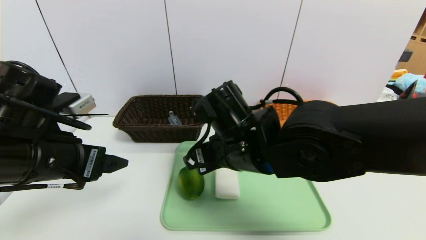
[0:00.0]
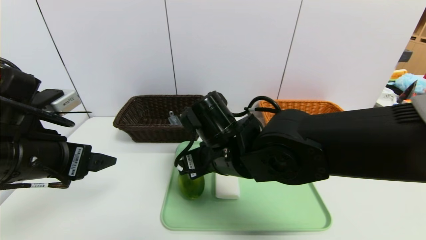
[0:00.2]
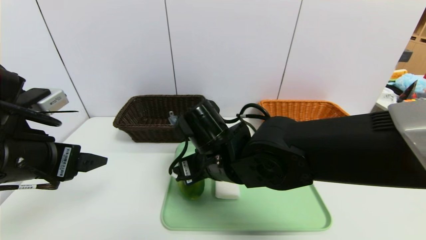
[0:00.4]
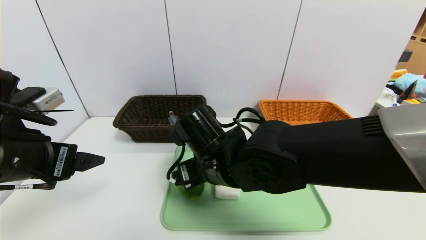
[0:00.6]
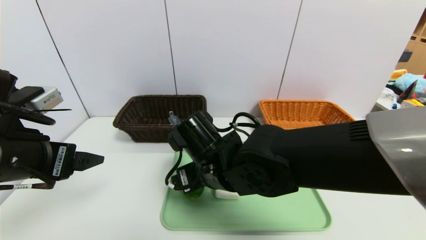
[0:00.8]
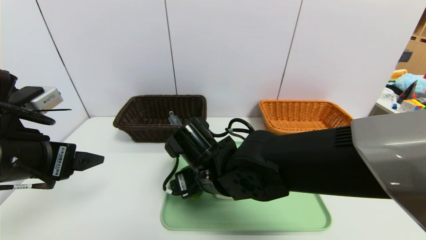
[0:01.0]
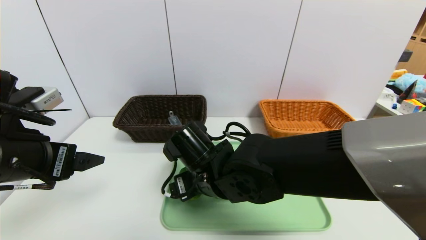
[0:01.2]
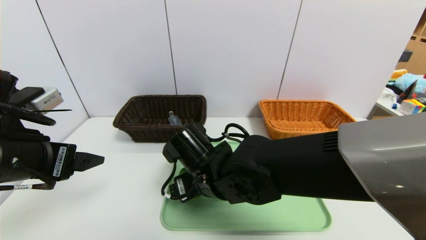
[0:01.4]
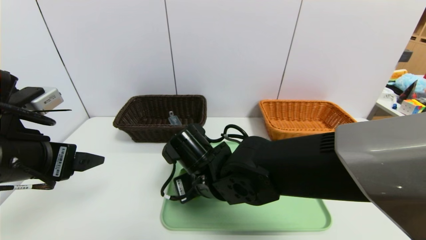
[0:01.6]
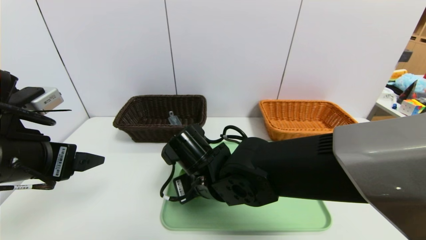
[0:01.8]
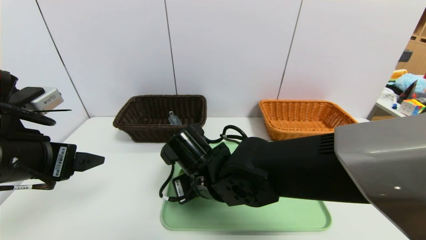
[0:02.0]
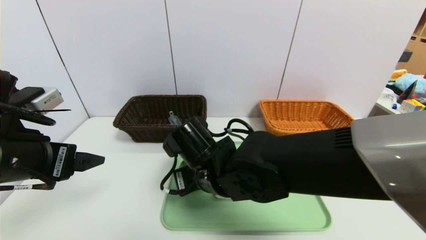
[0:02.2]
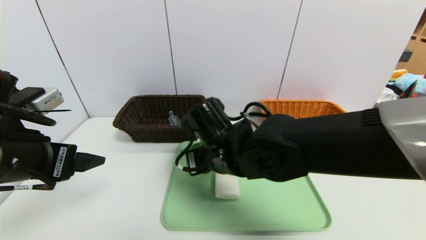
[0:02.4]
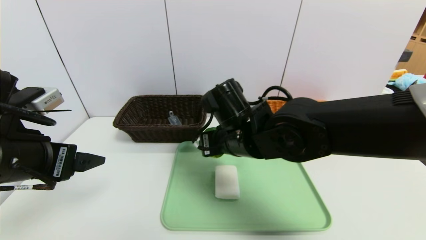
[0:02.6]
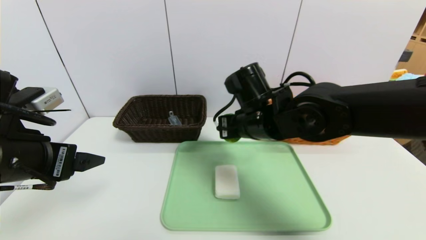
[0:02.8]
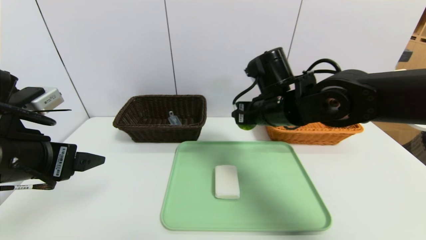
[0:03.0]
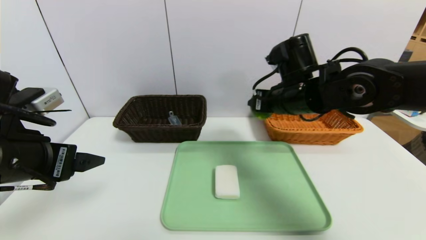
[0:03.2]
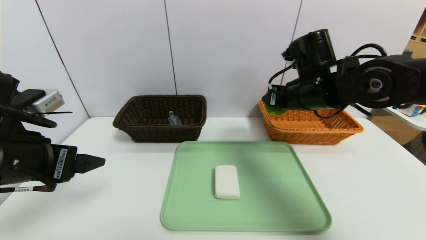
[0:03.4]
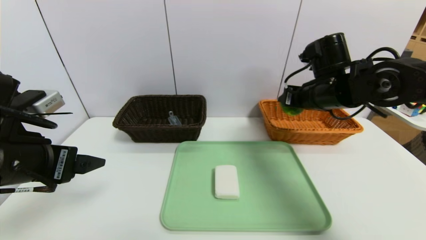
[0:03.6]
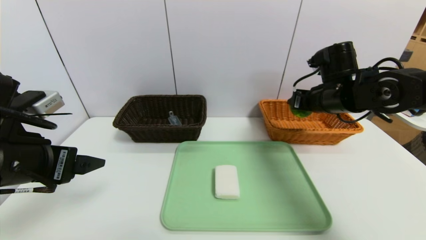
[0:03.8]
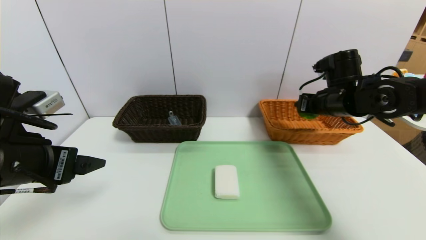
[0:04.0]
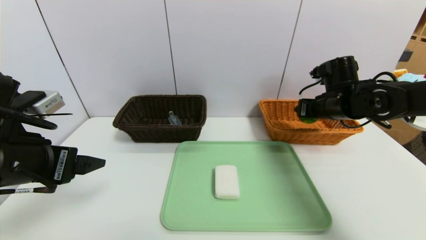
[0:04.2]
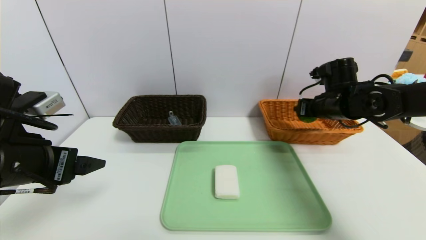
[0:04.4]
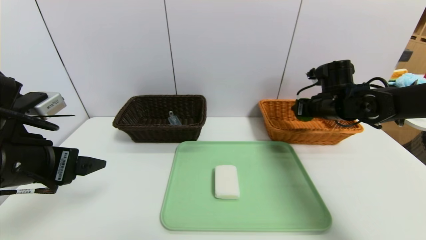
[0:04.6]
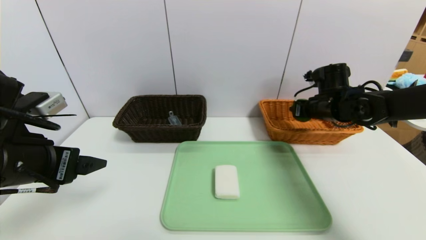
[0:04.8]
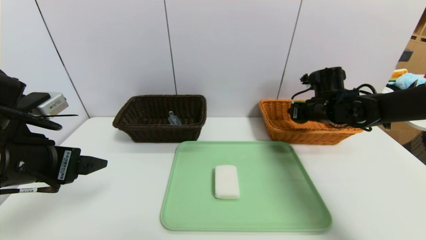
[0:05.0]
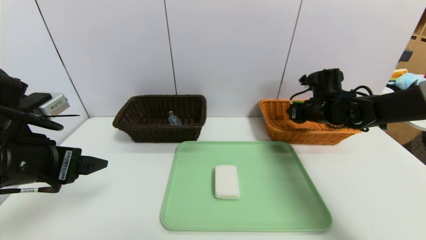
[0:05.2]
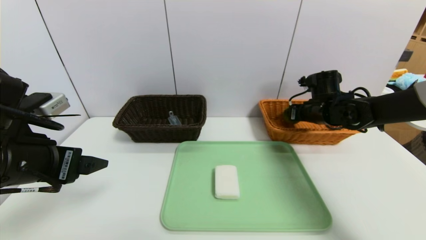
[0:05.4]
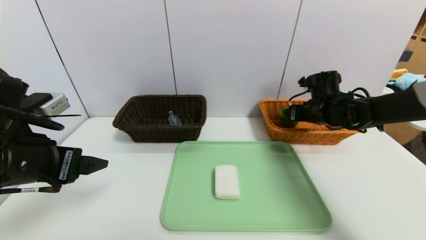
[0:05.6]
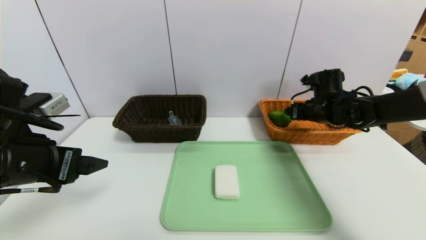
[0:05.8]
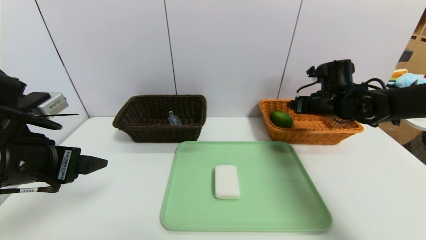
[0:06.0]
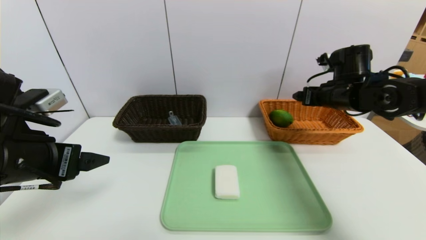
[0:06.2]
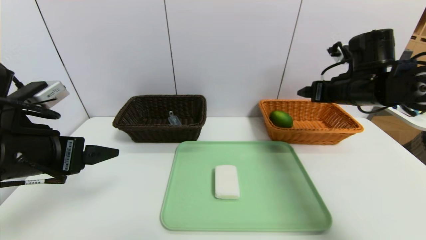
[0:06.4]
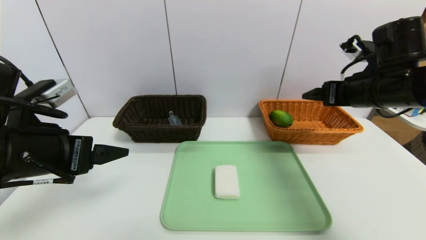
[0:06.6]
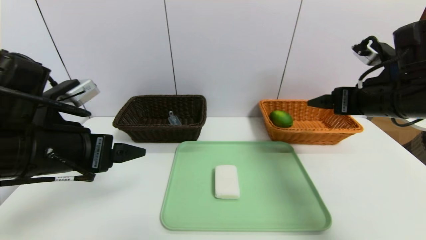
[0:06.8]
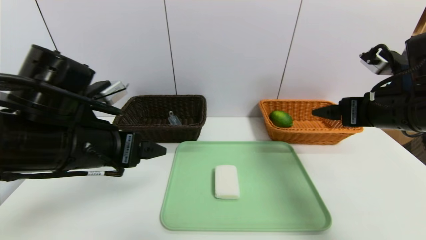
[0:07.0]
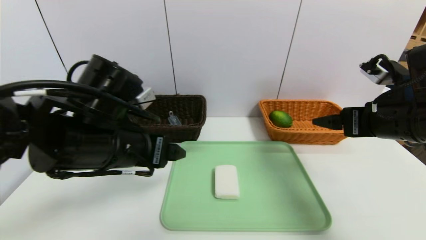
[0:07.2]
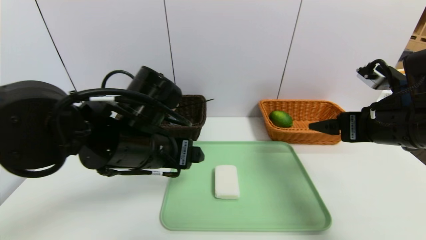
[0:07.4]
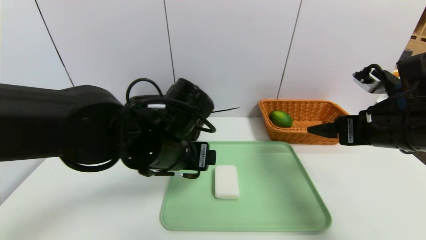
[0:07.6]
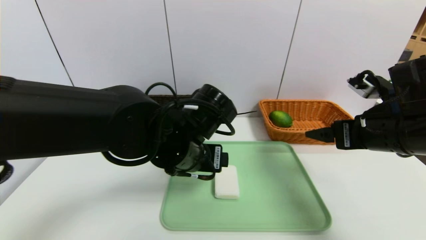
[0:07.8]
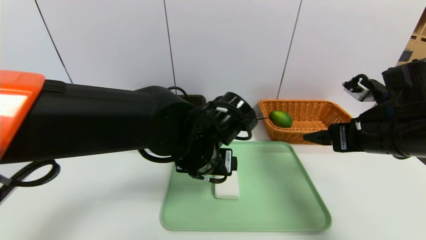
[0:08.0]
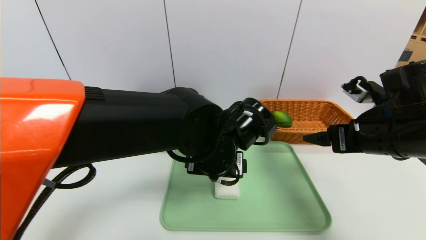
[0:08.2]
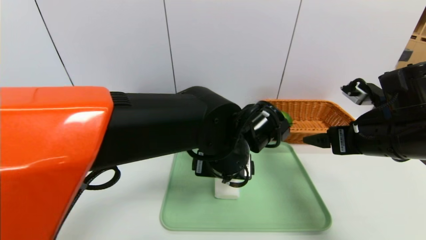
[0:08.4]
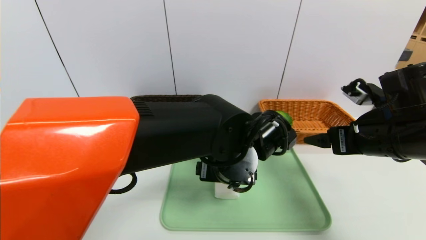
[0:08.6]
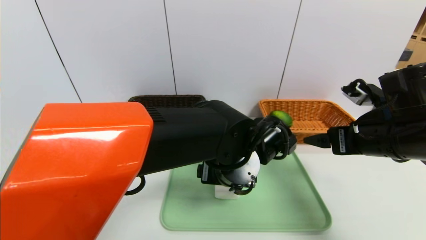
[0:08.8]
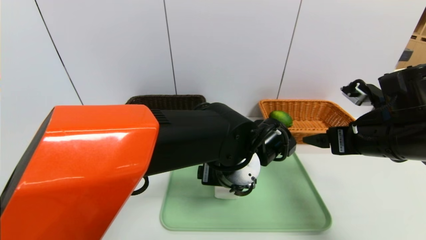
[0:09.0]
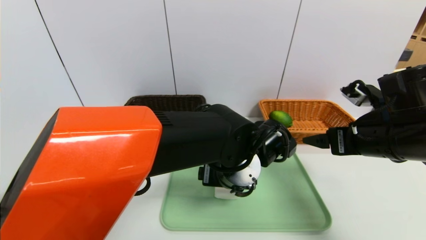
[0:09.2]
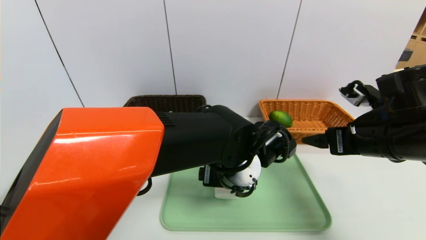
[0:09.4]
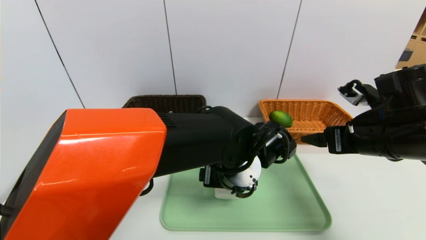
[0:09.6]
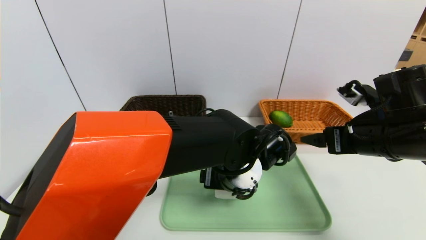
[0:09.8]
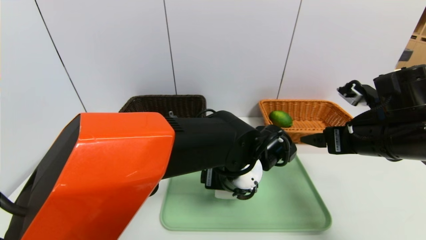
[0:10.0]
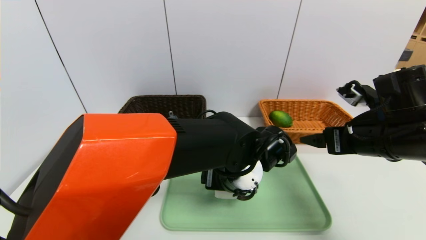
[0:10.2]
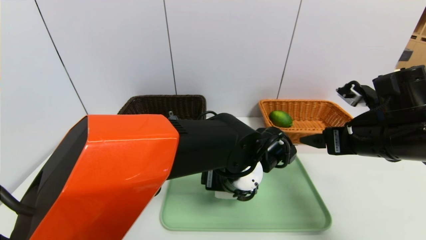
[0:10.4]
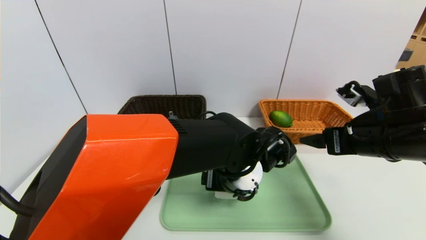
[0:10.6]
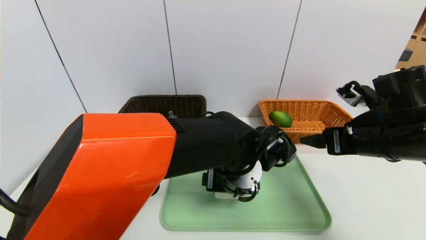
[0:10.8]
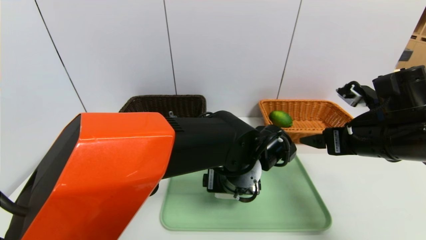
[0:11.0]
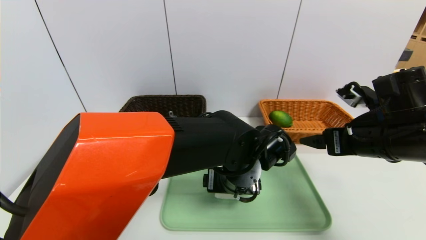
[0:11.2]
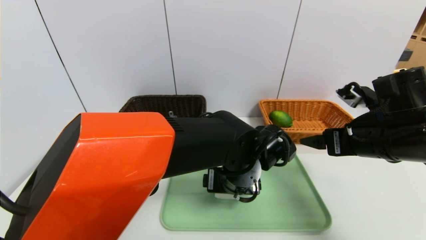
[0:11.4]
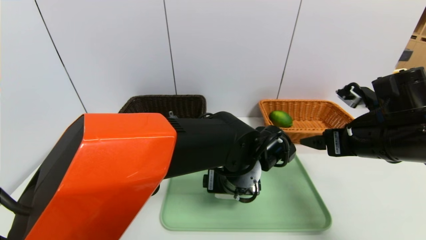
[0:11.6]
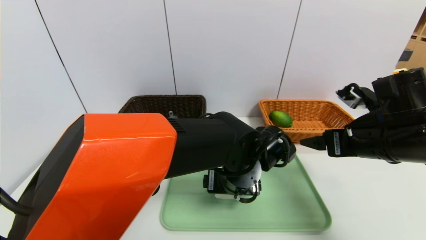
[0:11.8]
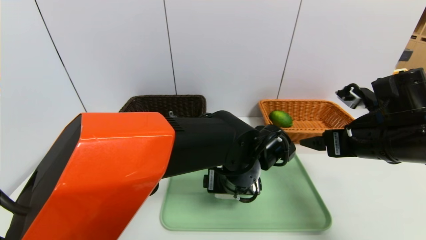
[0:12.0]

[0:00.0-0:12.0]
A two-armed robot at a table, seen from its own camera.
Task of the whole recording: place the food in the right basket with the right gripper, and place the non food items in the left basket with the left gripper.
Step, 0:00.0 to 0:05.8: Grasp the lemon and put it in the right basket.
0:00.0 to 0:01.6: The right gripper is displaced downward by about 5 cm, and closes up.
0:01.6 to 0:03.0: The right gripper heads to the right, upward and forward, covering approximately 15 cm.
0:03.0 to 0:04.4: The right gripper travels to the right and forward by about 15 cm.
0:04.4 to 0:06.0: The right gripper opens.
0:06.0 to 0:07.6: The left gripper travels to the right by some 20 cm. The right gripper goes some 15 cm backward.
0:07.6 to 0:09.0: The left gripper heads to the right, covering some 10 cm.
0:09.0 to 0:12.0: There are only small adjustments of the grippers.

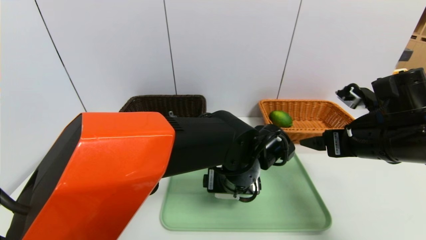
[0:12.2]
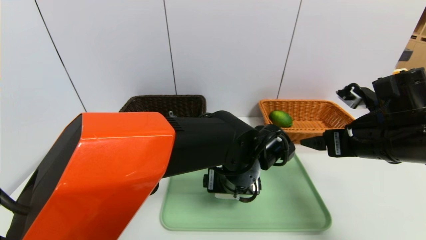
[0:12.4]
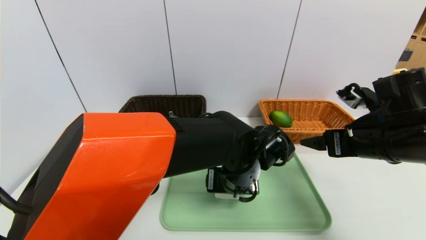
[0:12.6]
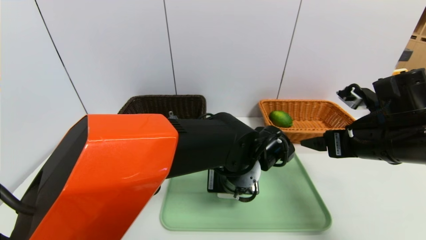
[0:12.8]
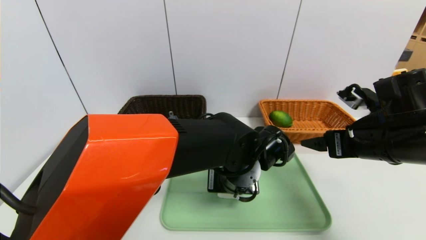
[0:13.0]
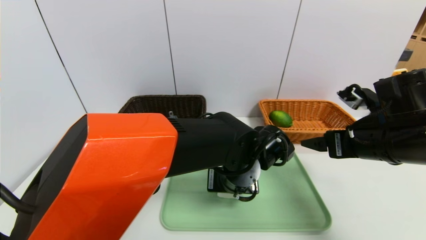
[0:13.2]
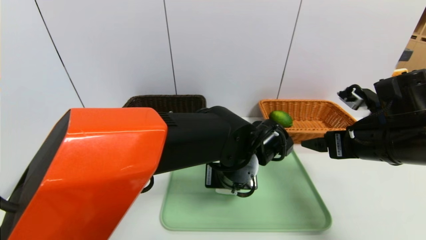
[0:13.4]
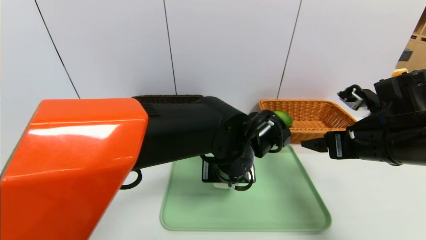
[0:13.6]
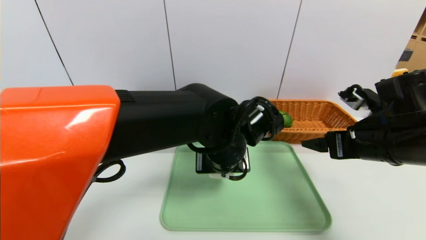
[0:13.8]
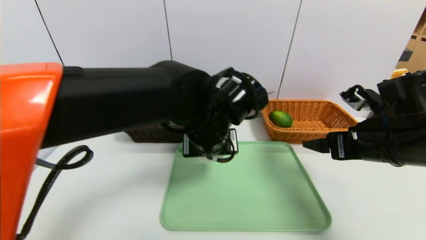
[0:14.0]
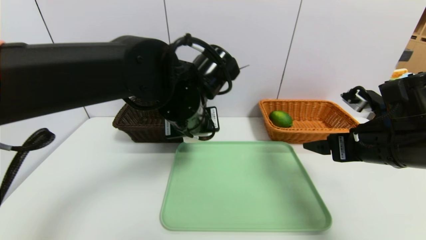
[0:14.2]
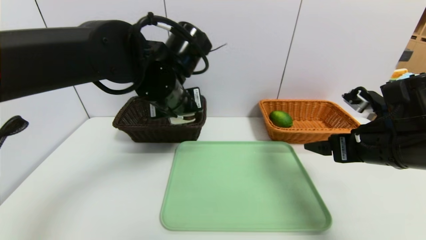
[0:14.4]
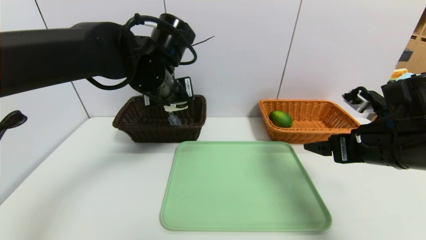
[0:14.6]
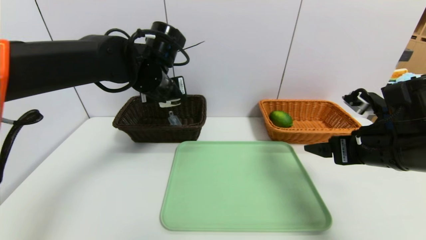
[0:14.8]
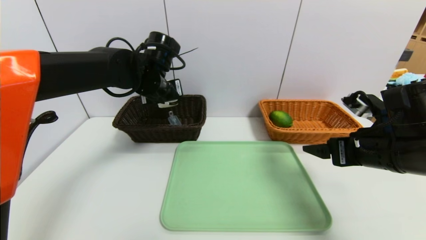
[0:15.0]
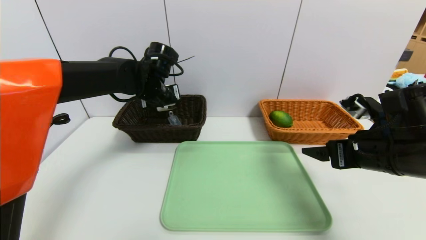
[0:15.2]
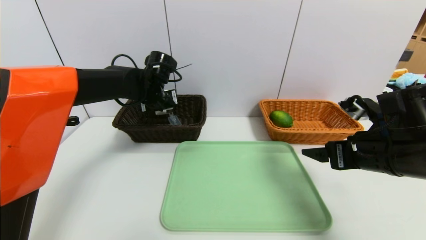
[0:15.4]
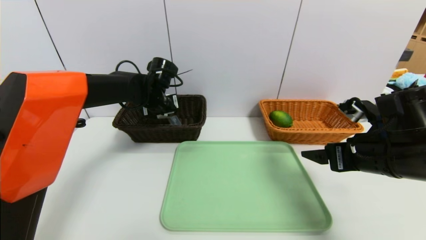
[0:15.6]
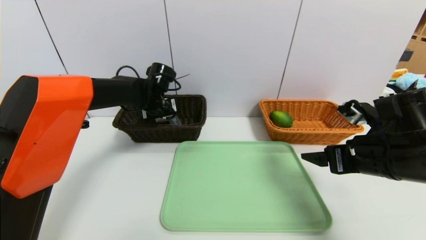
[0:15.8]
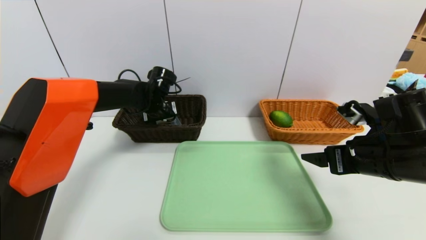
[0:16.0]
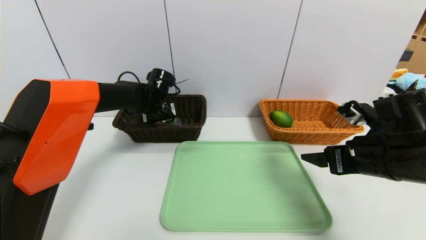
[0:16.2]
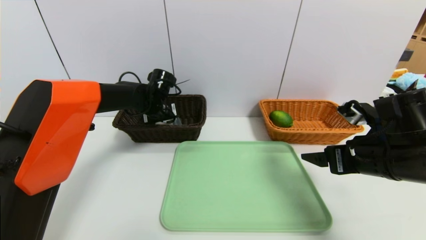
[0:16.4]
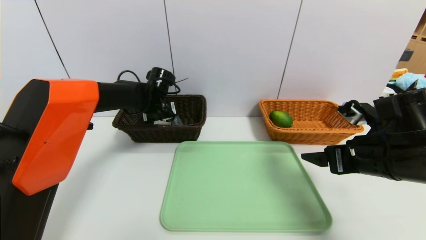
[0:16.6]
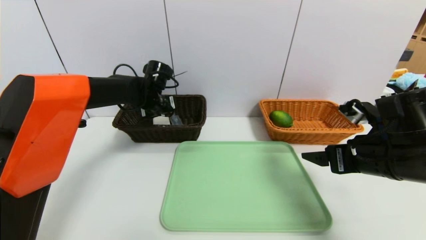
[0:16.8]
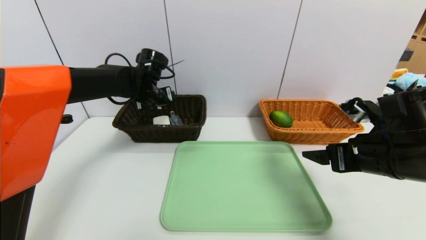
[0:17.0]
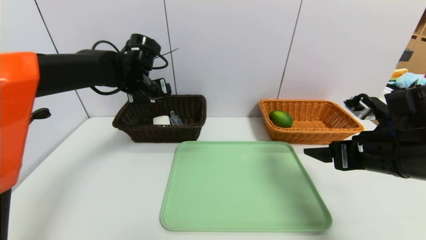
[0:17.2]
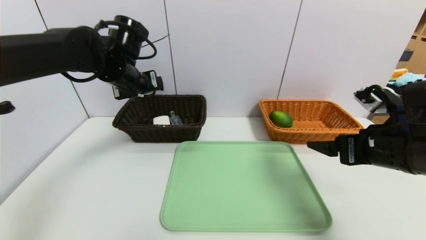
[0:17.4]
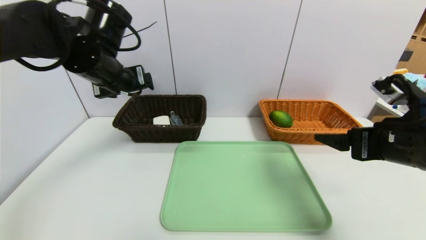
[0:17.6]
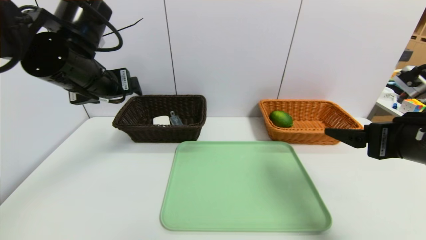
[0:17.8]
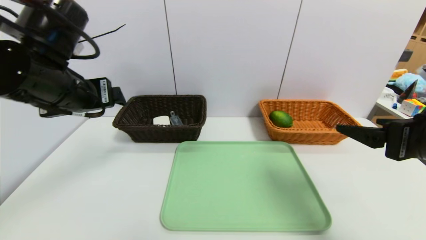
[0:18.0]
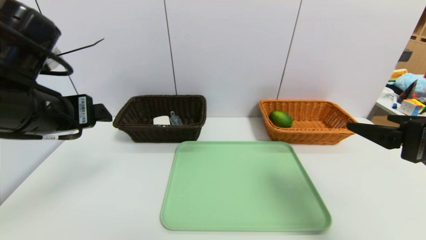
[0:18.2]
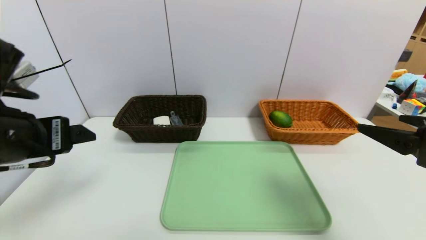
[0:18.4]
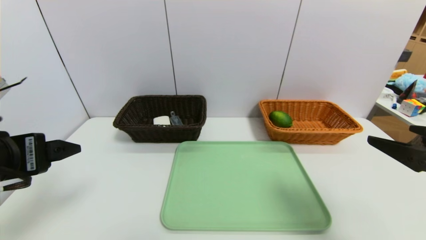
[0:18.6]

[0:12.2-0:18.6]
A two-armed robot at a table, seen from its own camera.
Task of the whole recording: place the food in the right basket with the right gripper, and place the non food items in the left basket with the left gripper.
Step, 0:12.2 to 0:17.2: Grasp the soap and put it in the left basket.
0:12.2 to 0:13.8: The left gripper ends up roughly 5 cm from where it was, and closes up.
0:13.8 to 0:15.4: The left gripper heads forward and to the left, covering about 25 cm.
0:15.4 to 0:17.0: The left gripper opens its fingers.
0:17.0 to 0:18.6: The right gripper heads backward and upward, covering about 10 cm. The left gripper goes roughly 30 cm backward.
